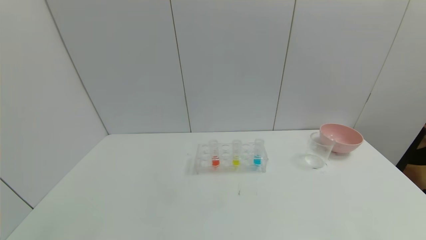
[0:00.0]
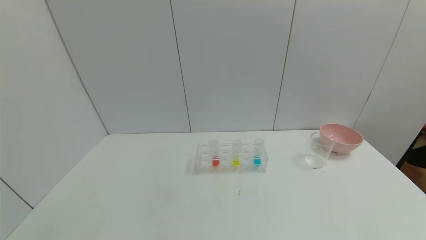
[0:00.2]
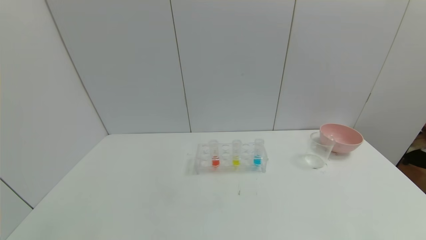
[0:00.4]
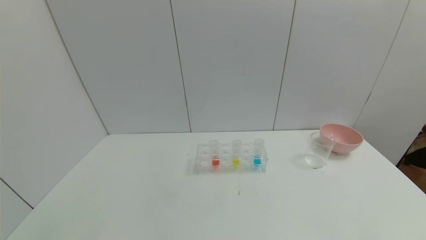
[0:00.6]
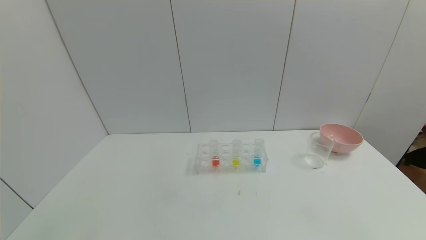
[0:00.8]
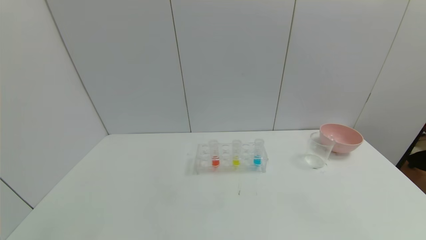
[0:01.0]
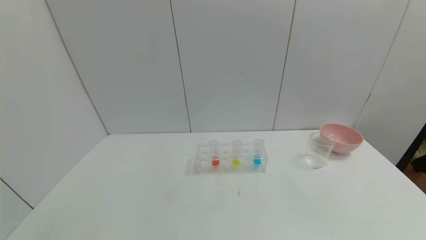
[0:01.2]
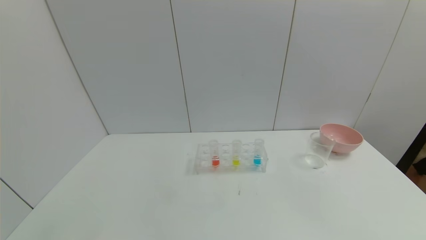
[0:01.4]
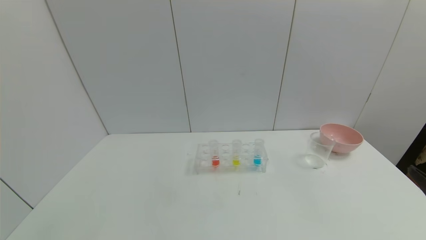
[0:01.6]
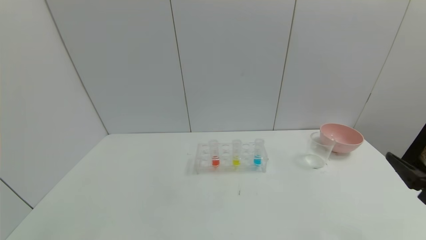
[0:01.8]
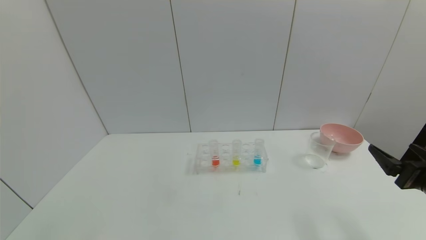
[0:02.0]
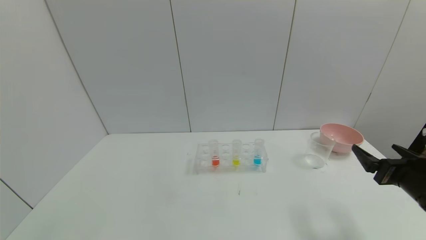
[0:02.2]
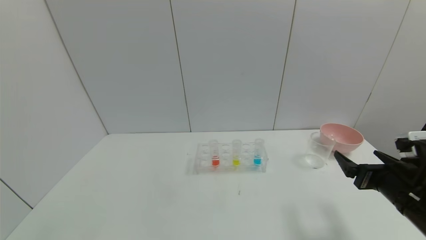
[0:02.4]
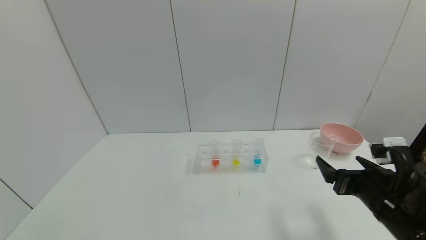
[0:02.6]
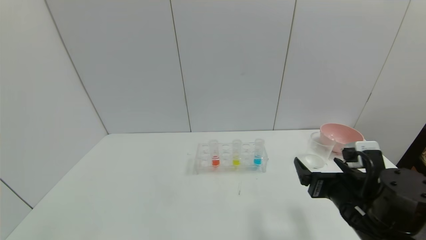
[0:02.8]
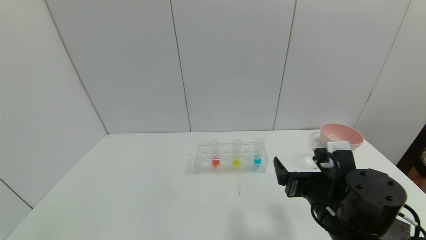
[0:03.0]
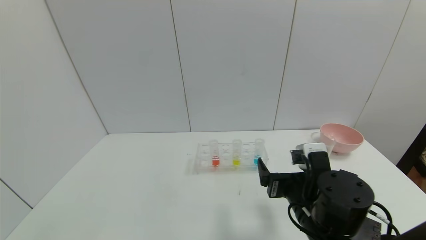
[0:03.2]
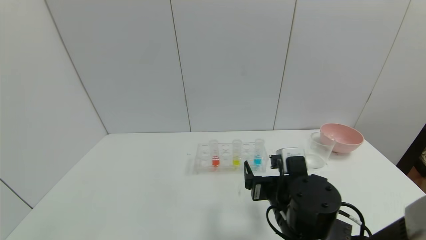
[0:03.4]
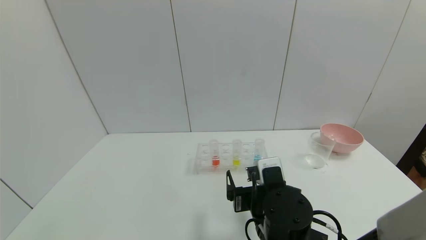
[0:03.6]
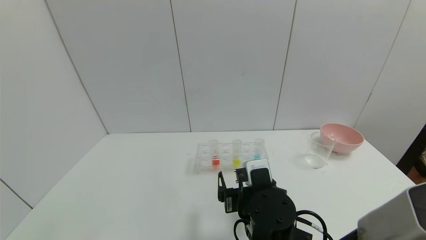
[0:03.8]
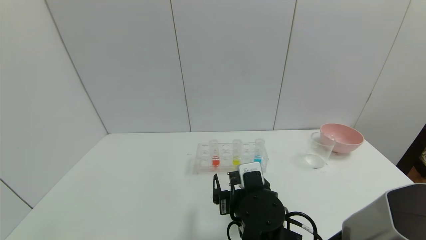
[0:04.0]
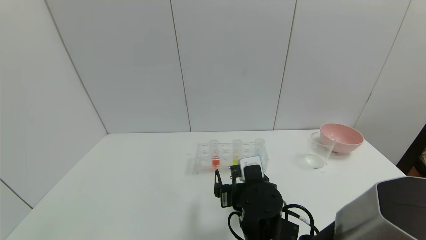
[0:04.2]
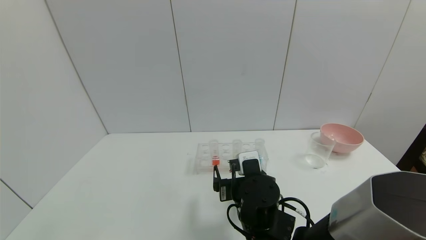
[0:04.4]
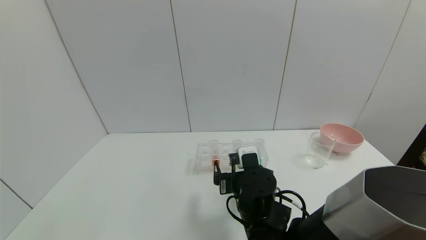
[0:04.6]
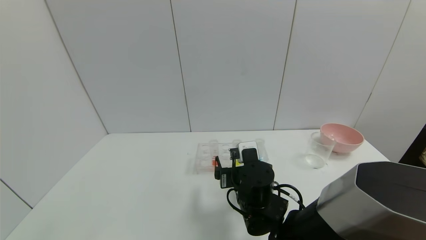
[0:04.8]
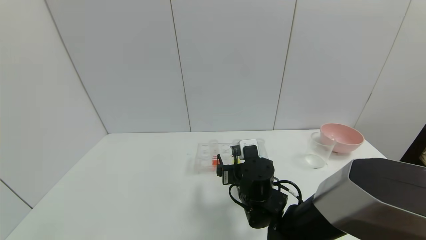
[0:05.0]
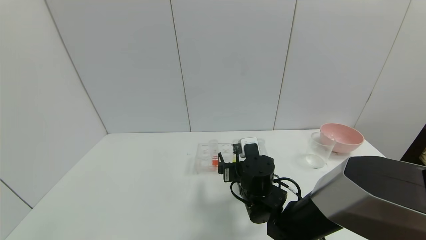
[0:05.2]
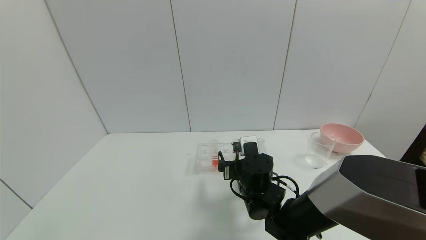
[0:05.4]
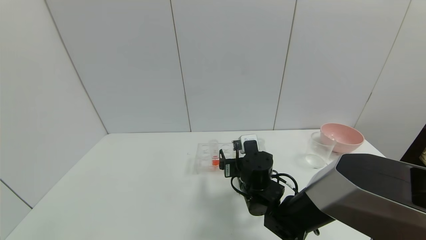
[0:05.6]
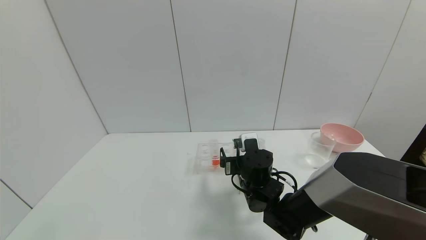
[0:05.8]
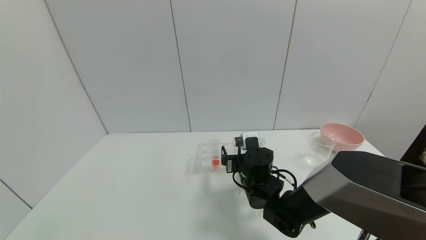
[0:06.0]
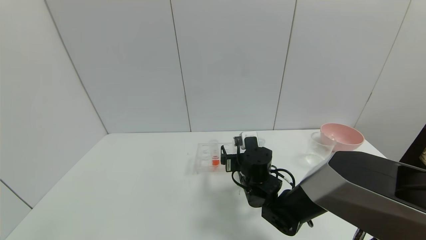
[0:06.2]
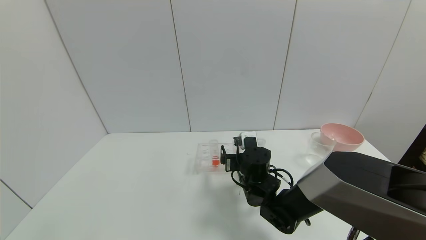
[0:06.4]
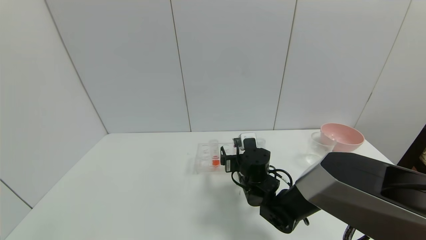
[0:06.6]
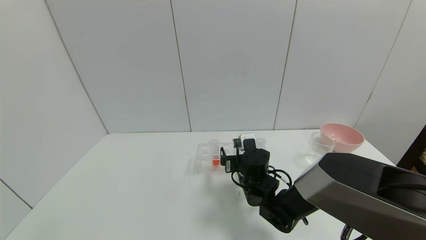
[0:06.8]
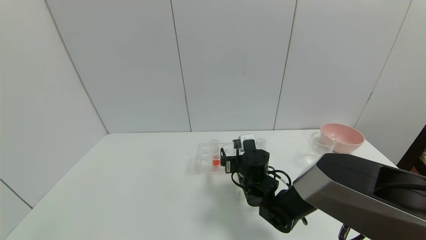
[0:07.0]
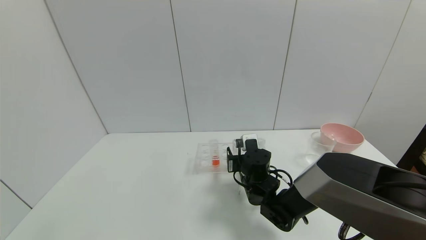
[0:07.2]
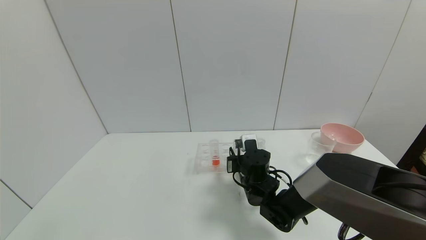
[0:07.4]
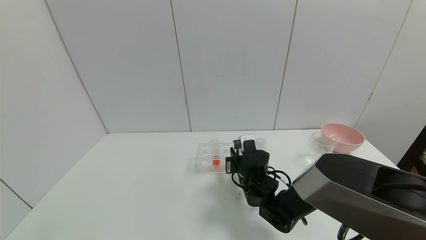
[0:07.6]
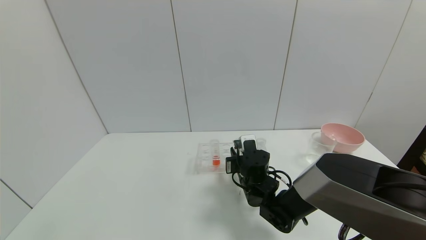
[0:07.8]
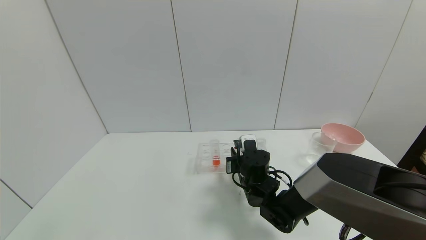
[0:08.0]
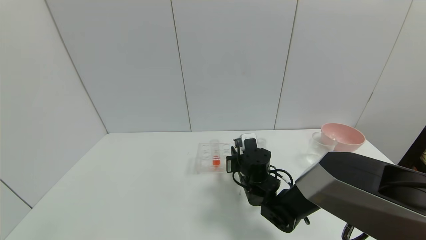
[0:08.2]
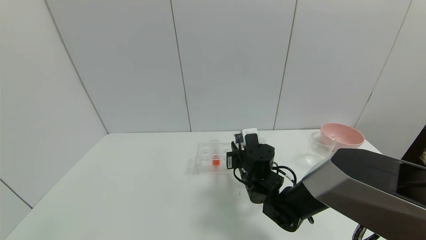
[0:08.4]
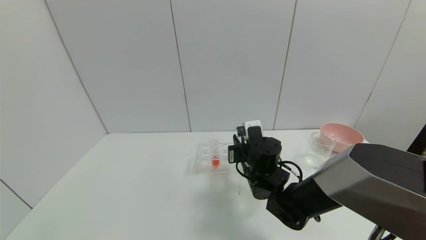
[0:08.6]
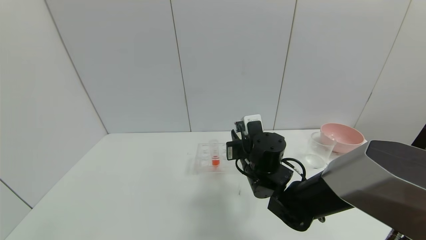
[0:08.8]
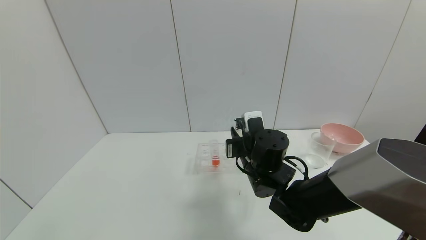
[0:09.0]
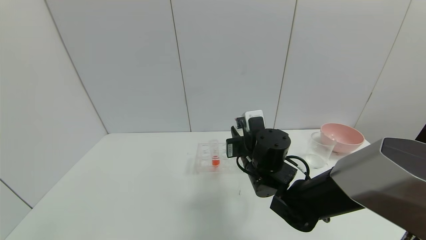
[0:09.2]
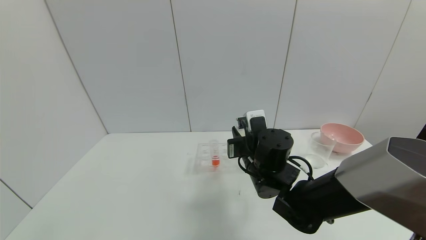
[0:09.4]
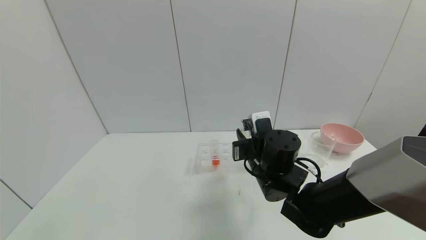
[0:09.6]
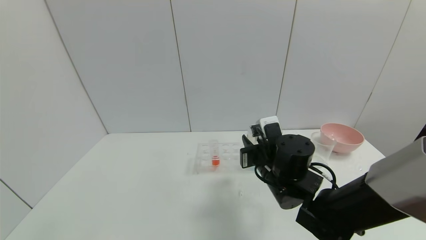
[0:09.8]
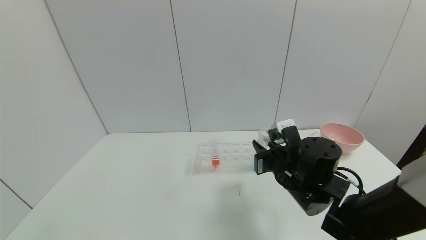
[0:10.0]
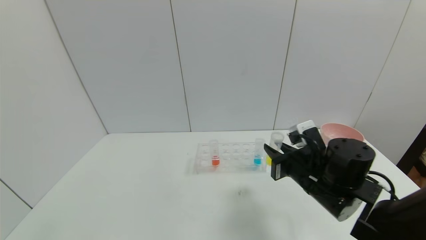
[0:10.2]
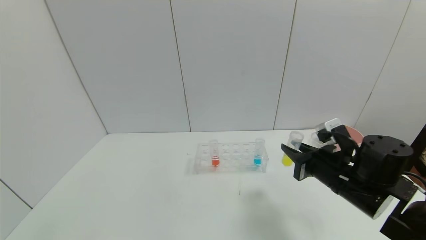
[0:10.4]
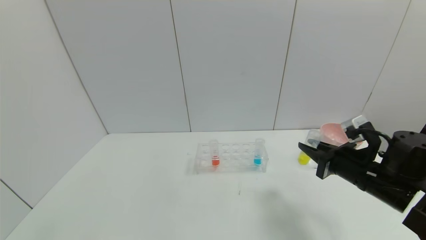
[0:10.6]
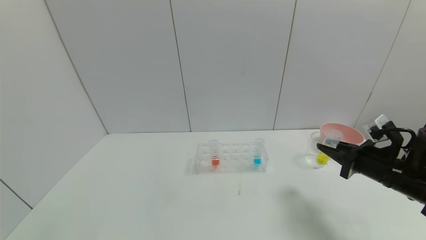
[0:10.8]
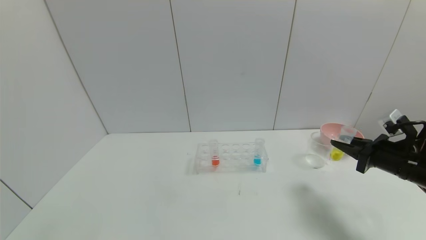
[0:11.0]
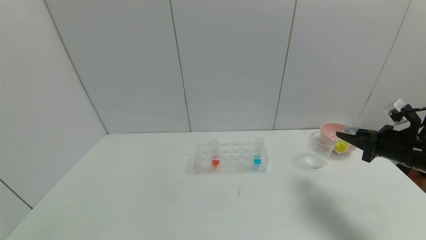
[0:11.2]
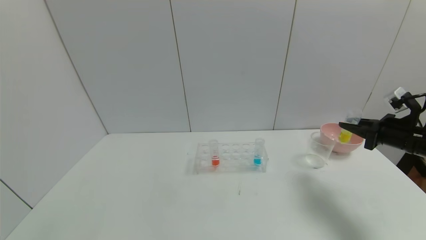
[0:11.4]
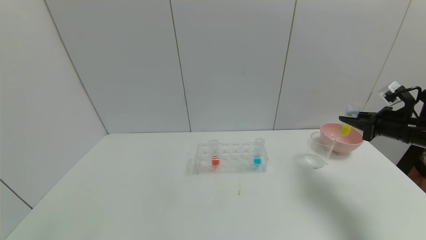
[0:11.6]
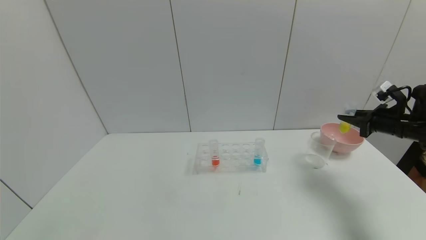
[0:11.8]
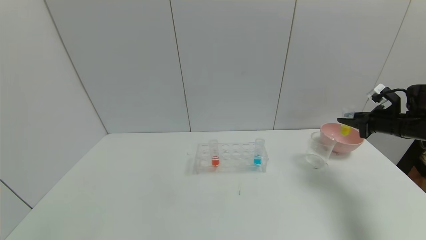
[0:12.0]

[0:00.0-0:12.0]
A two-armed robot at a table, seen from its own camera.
Task of the whole recording: pick up the test tube with yellow pigment and the test tube with blue pigment by grippers and pour them into the beaker.
Step, 0:00.0 to 0:07.6: Grasp the yellow reagent with the right gripper.
0:01.6 to 0:03.0: The right gripper travels to the left and forward by about 20 cm.
0:03.0 to 0:04.4: The right gripper heads to the left, covering about 10 cm.
0:04.4 to 0:06.0: The right gripper heads forward, covering roughly 10 cm.
0:06.0 to 0:07.6: The right gripper closes up.
0:07.6 to 0:09.0: The right gripper is displaced upward by some 10 cm.
0:09.0 to 0:10.4: The right gripper moves to the right, about 15 cm.
0:10.4 to 0:12.0: The right gripper is displaced to the right and forward by about 25 cm.

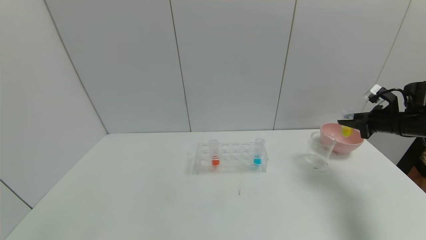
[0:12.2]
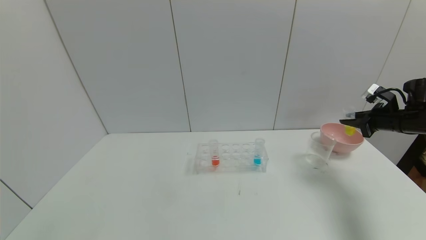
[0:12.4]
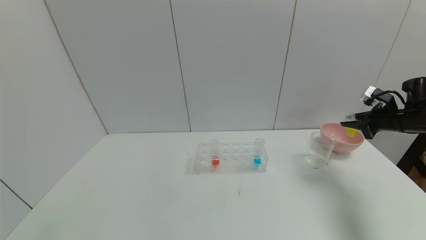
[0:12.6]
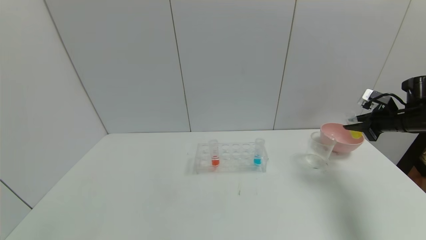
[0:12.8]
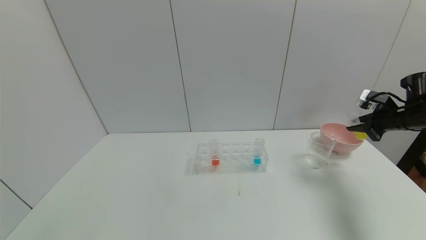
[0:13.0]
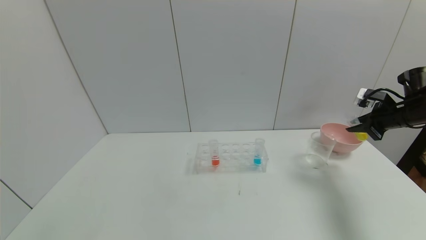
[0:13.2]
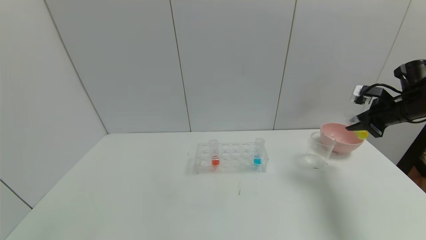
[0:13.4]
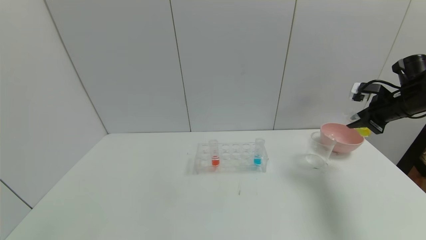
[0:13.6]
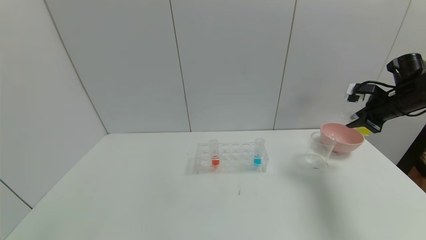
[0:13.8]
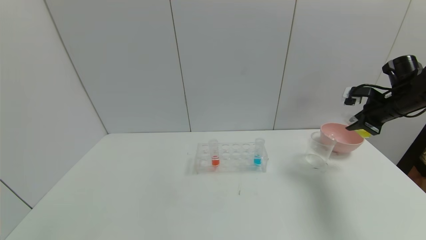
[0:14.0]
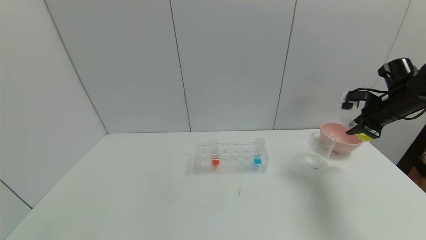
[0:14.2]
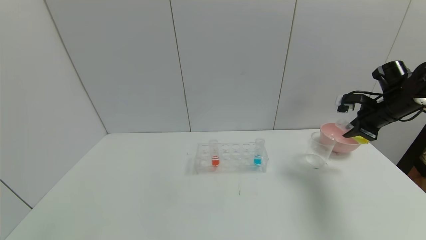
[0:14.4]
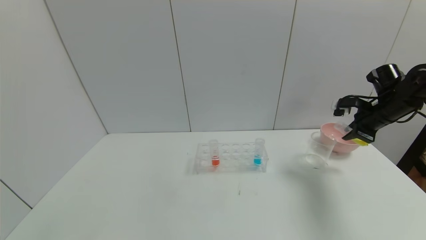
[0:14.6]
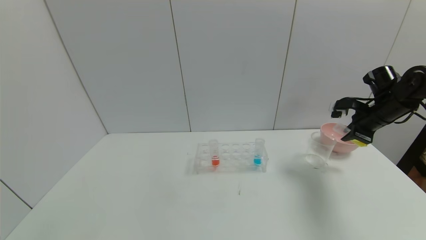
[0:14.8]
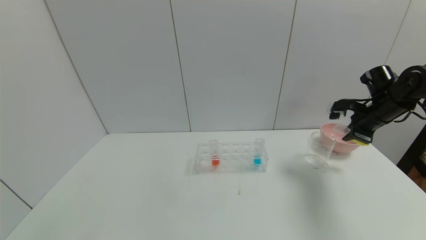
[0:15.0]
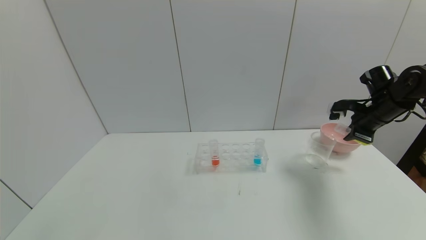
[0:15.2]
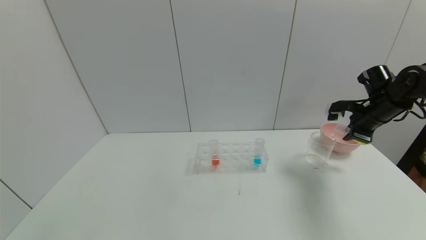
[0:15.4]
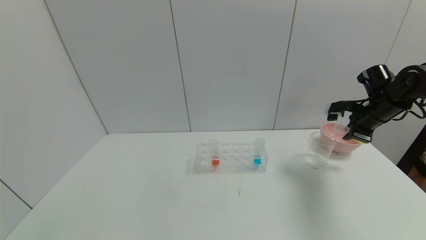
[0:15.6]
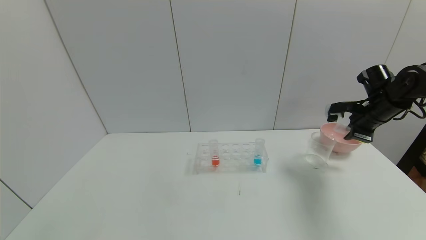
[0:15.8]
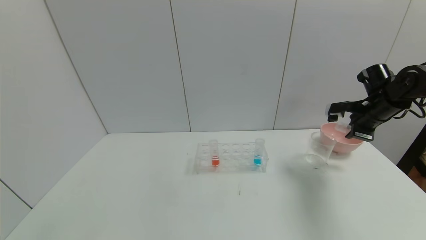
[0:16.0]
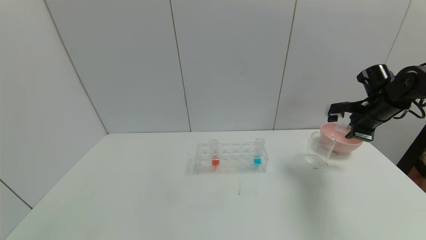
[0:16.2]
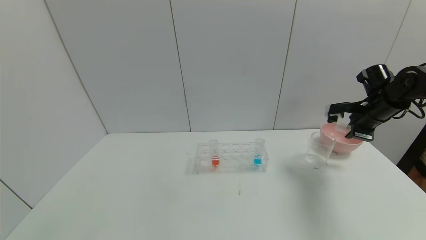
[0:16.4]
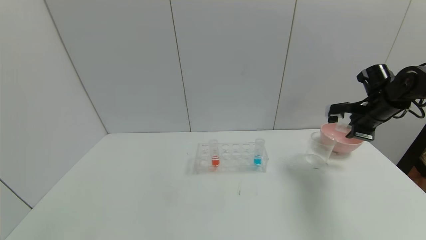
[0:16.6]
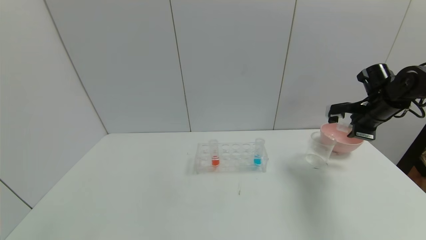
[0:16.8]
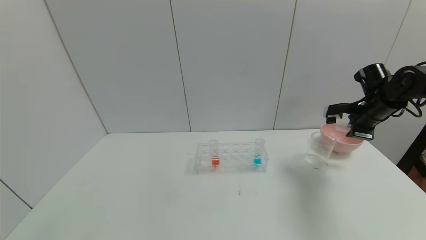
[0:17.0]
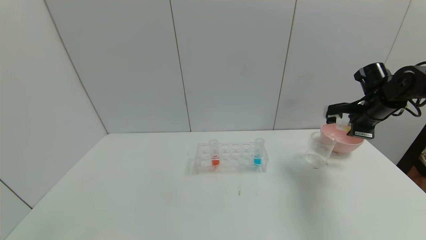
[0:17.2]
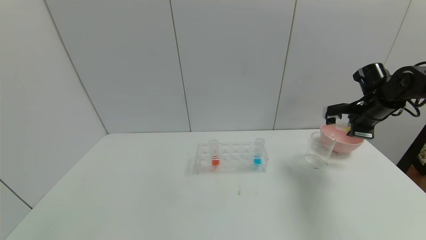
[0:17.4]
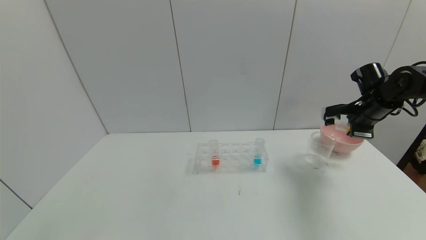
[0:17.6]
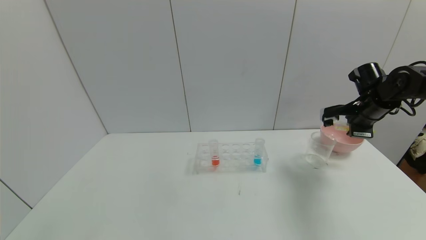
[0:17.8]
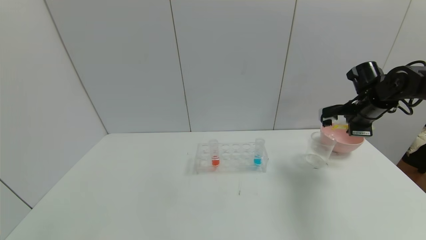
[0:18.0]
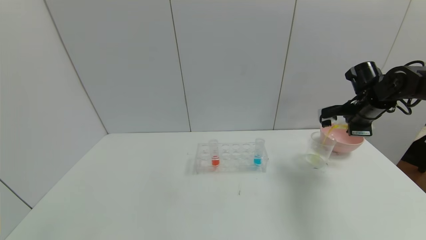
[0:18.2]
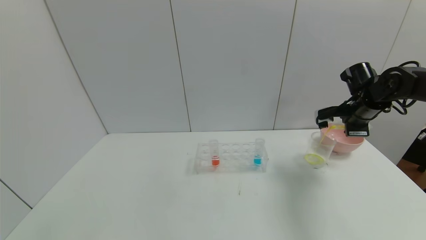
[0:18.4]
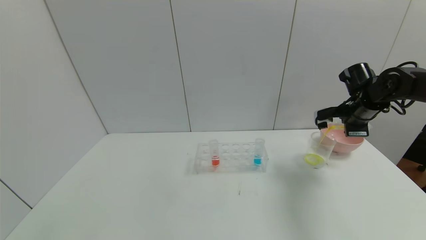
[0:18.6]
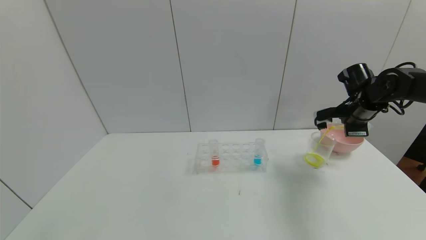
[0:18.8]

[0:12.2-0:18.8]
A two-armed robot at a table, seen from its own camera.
Task of the whole recording: pick up the test tube with yellow pigment and the test tube with blue pigment by grippers and pour them into the beaker.
0:12.2 to 0:13.8: The right gripper moves upward, approximately 5 cm.
0:13.8 to 0:15.4: The grippers move only a little.
0:15.4 to 0:17.2: There are only small adjustments of the grippers.
0:17.2 to 0:18.8: The grippers make only small movements.
